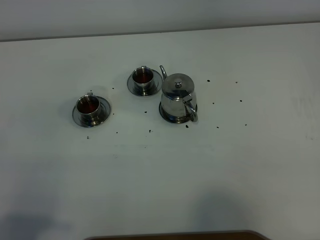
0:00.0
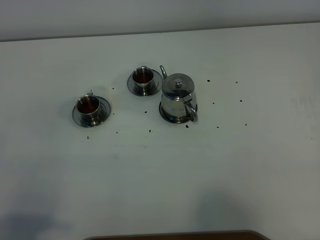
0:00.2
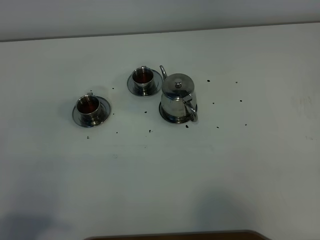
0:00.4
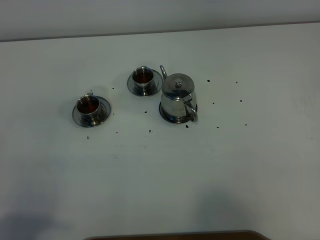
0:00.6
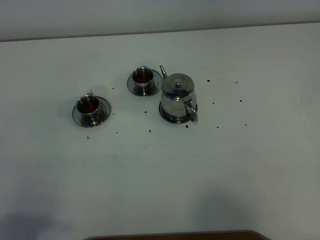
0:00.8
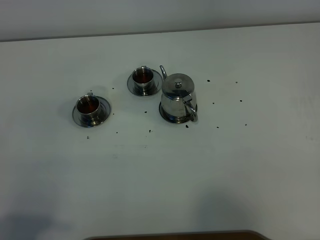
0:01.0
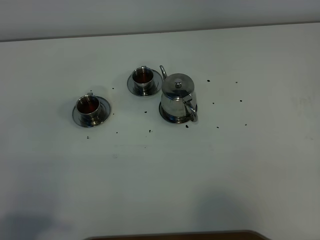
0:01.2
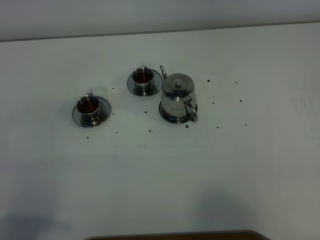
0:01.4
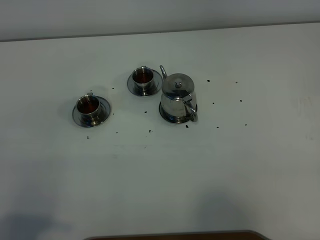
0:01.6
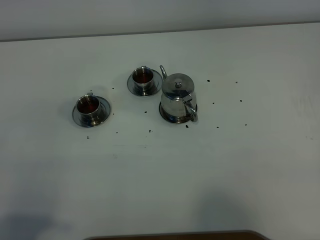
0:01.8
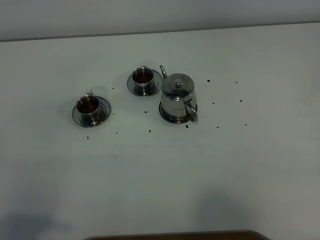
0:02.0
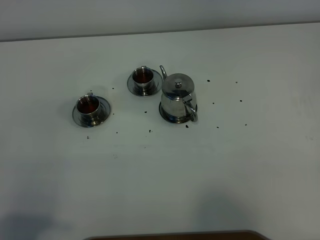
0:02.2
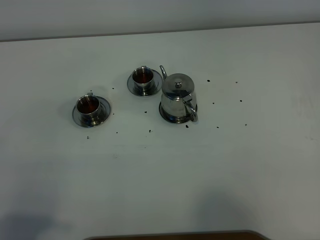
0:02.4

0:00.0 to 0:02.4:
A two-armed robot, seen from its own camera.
Task of the whole recording: grasp the stainless steel teapot and pour the tea into the two stainless steel teacups one by one, put the stainless steel teapot back in its original place.
0:01.2 to 0:02.4: The two grippers keep their place.

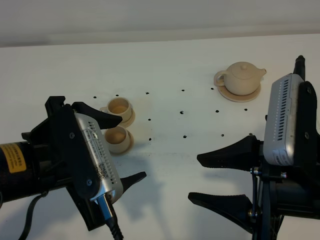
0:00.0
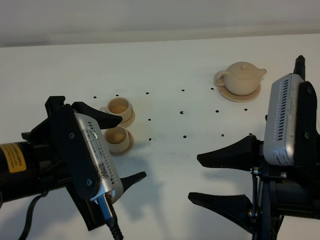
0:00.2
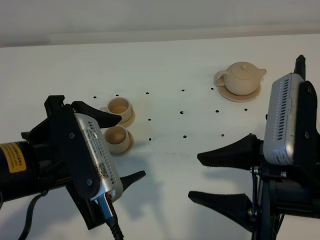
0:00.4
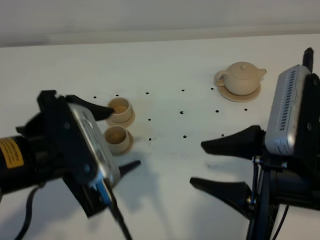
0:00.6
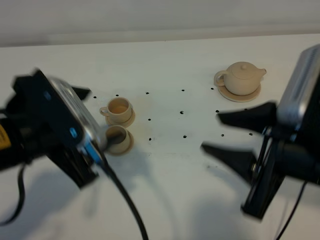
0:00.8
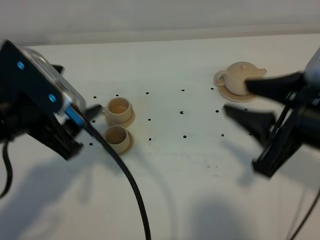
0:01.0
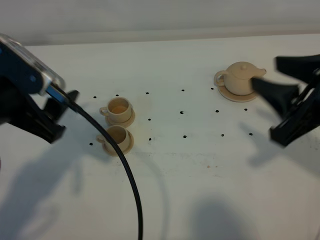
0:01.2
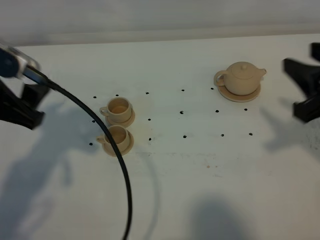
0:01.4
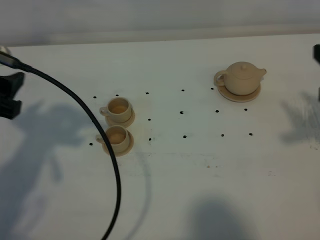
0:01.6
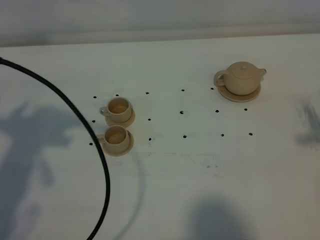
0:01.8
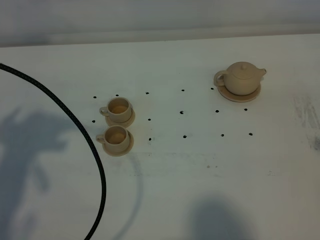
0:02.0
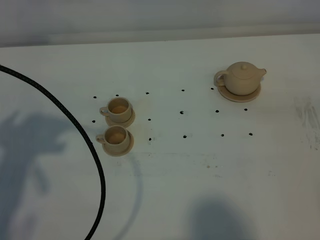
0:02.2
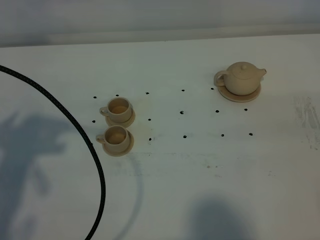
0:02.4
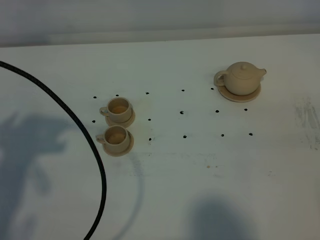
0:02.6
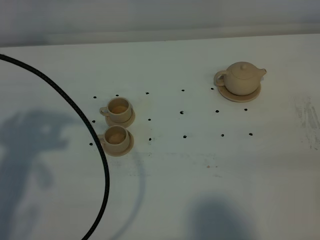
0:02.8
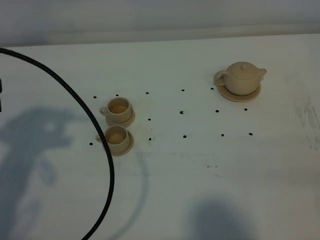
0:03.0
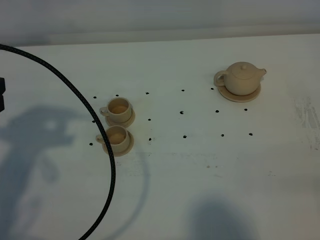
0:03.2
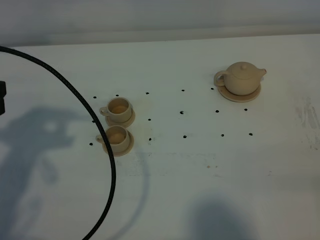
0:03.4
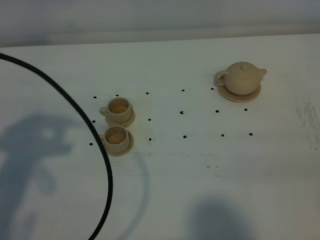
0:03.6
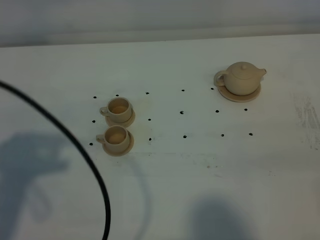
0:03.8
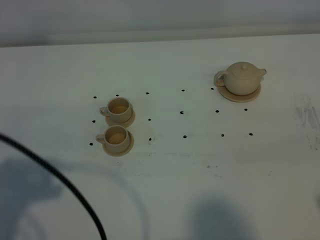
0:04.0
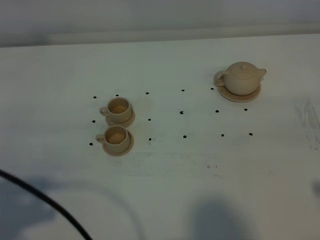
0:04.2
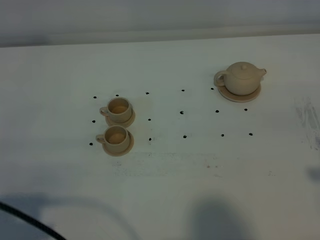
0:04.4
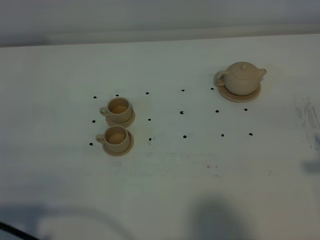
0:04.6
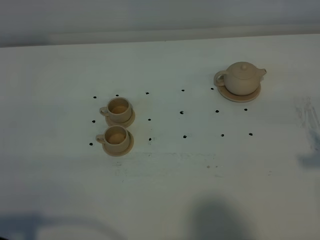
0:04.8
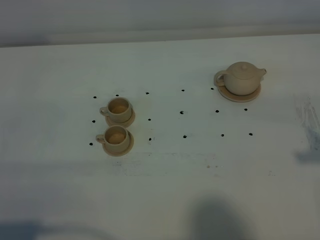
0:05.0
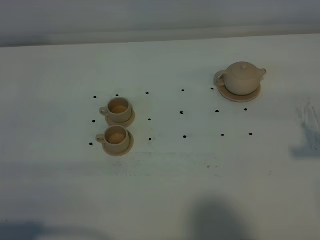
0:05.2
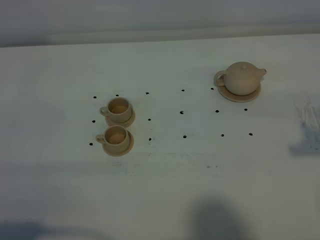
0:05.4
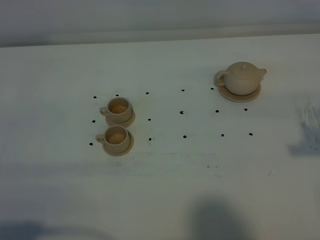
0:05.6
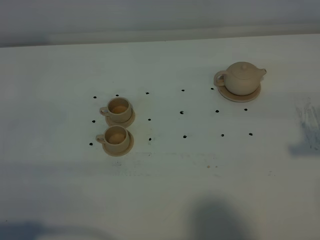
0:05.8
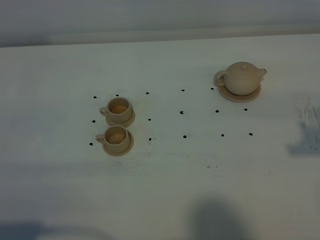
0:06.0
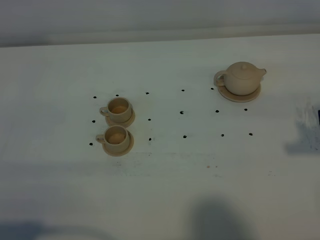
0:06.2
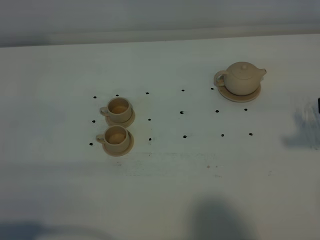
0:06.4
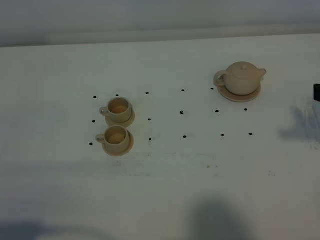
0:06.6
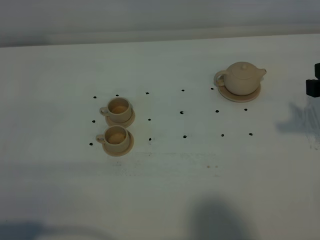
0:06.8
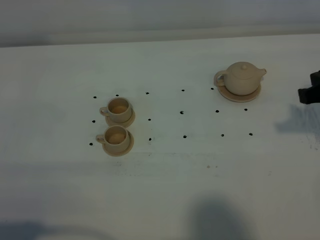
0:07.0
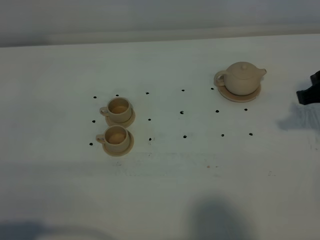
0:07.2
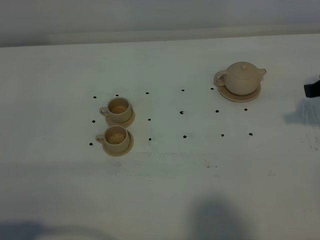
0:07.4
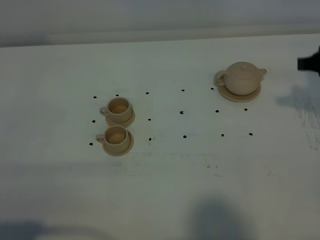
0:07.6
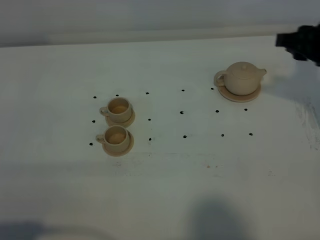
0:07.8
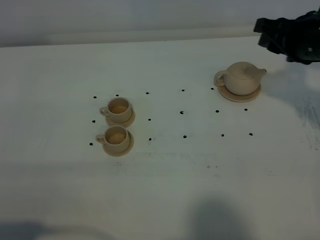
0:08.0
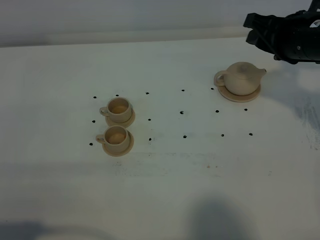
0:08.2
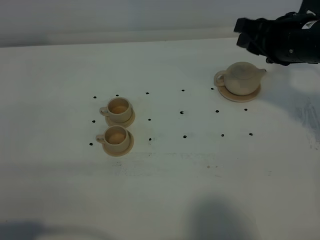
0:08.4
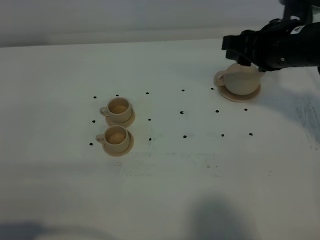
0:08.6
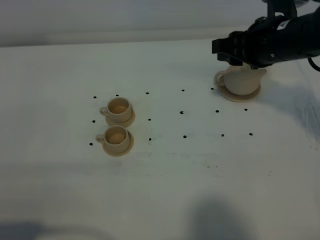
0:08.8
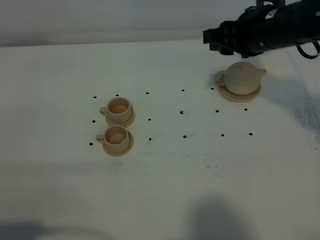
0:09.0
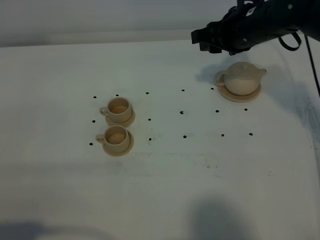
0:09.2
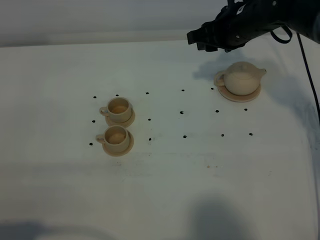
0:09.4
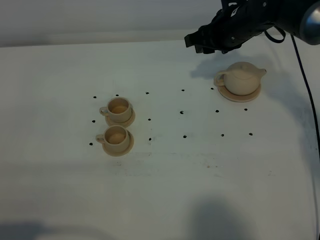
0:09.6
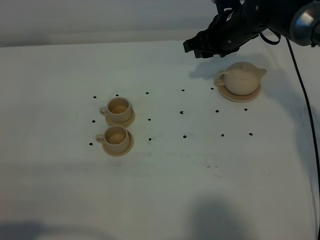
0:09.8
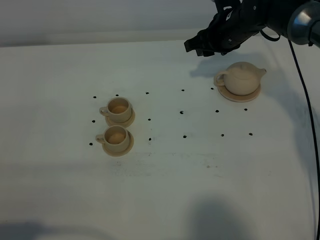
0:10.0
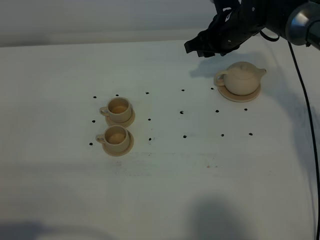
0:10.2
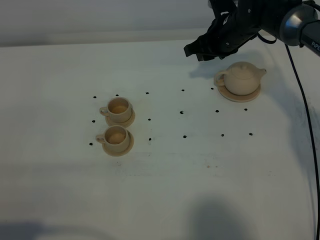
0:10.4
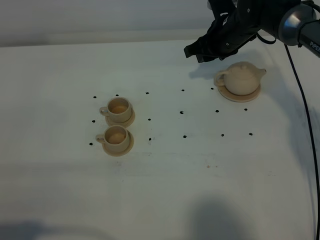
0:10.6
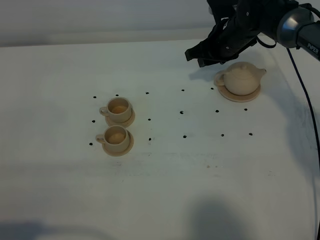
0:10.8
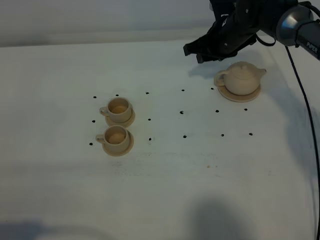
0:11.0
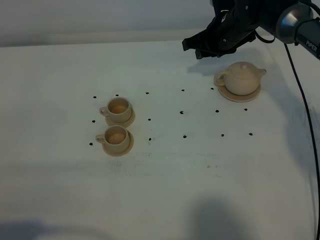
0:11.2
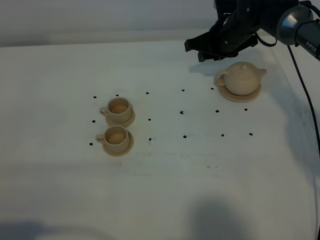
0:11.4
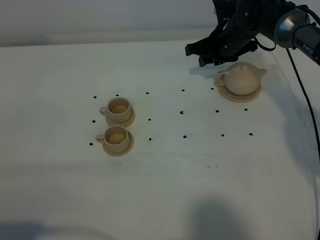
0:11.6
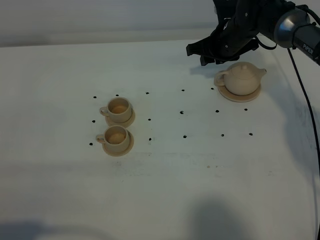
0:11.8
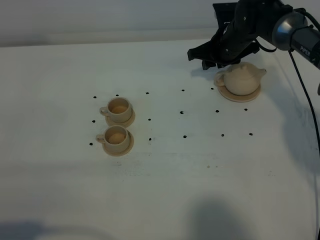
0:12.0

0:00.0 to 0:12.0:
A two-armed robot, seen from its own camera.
Task of the whole recording: grasp the brown teapot and pour the tea into the two brown teacups one by one, put the brown teapot back in its original place.
0:00.0 to 0:01.6: The right gripper is displaced to the right and forward by about 15 cm. Meanwhile the left gripper moves to the left and forward, some 15 cm.
0:01.6 to 0:03.0: The right gripper moves backward, some 20 cm.
0:03.0 to 0:04.4: The left gripper heads backward, covering some 15 cm, and closes its fingers.
0:06.0 to 0:07.6: The right gripper travels forward by approximately 15 cm.
0:07.6 to 0:09.0: The right gripper travels to the left and forward by roughly 15 cm.
0:09.0 to 0:10.4: The right gripper goes some 10 cm forward and downward.
0:10.4 to 0:12.0: The grippers make only small movements.

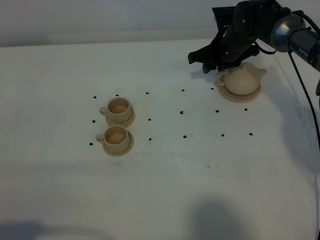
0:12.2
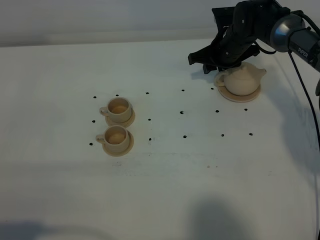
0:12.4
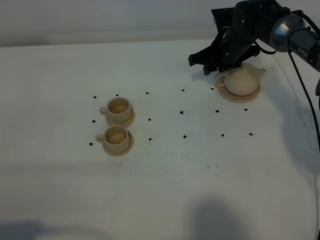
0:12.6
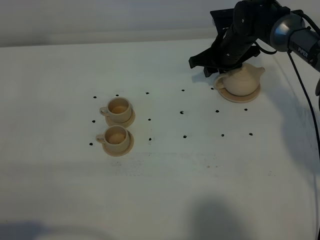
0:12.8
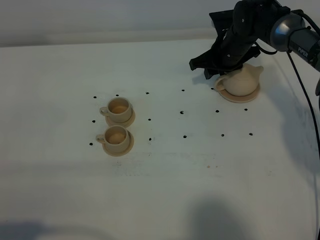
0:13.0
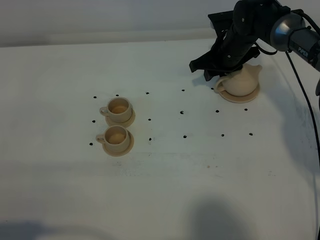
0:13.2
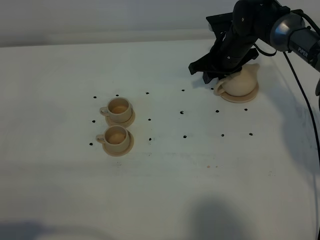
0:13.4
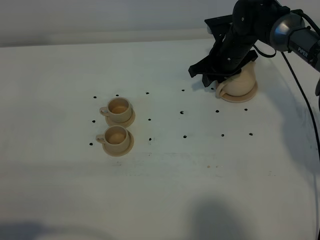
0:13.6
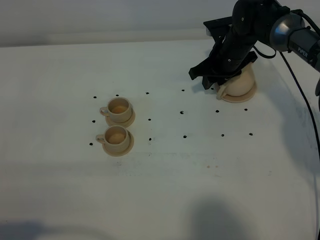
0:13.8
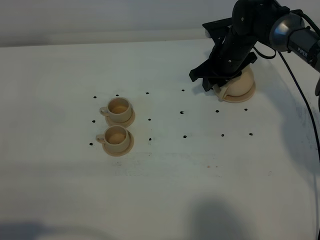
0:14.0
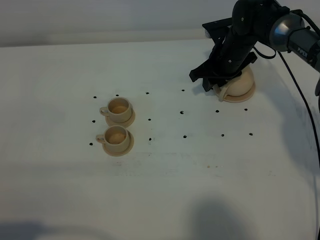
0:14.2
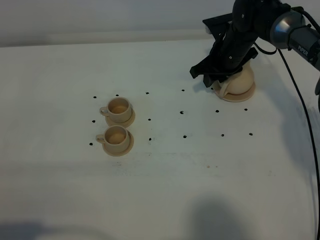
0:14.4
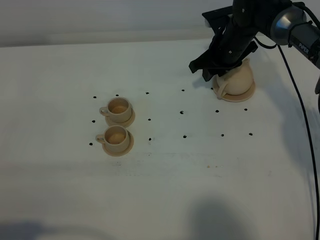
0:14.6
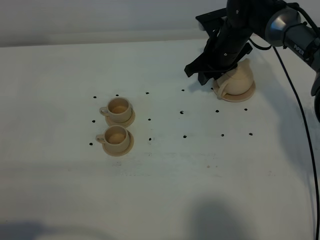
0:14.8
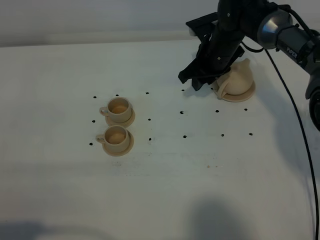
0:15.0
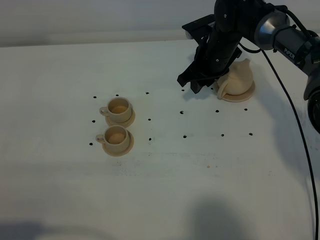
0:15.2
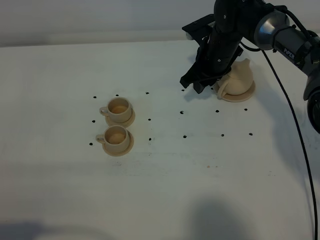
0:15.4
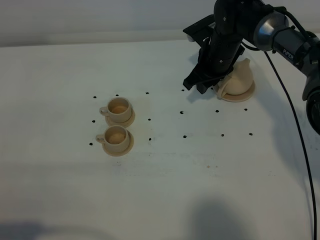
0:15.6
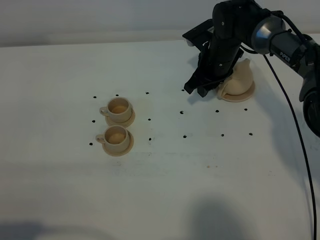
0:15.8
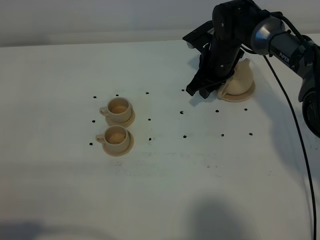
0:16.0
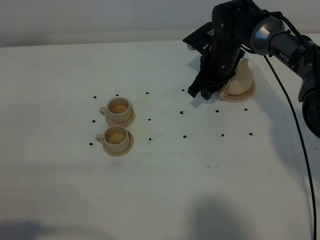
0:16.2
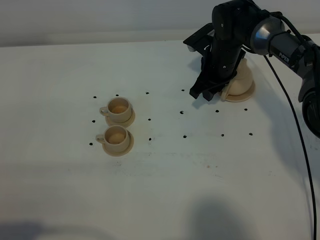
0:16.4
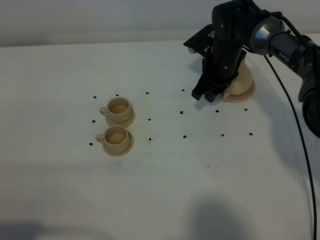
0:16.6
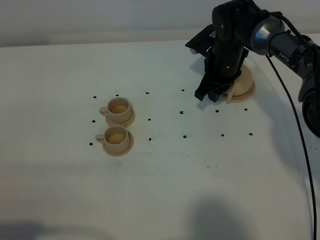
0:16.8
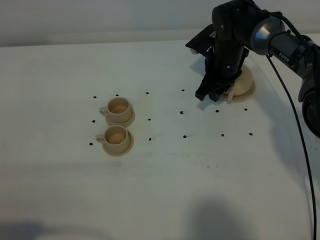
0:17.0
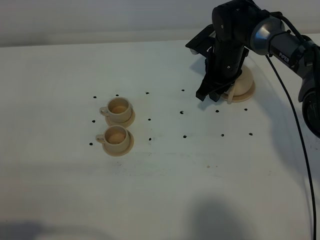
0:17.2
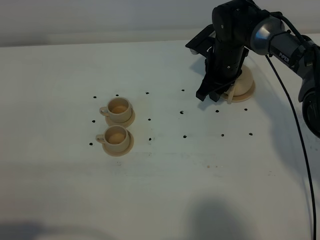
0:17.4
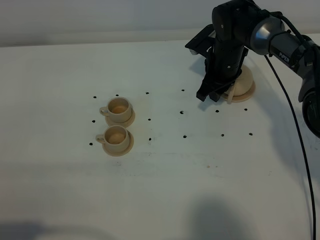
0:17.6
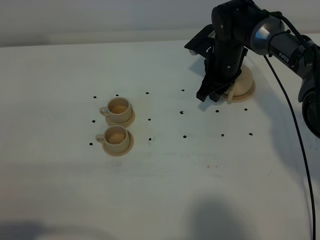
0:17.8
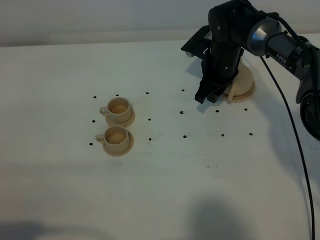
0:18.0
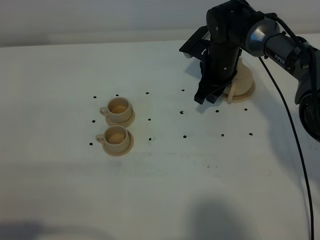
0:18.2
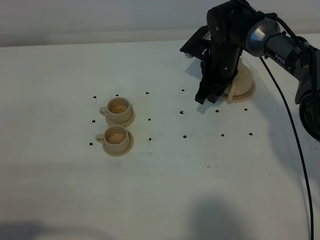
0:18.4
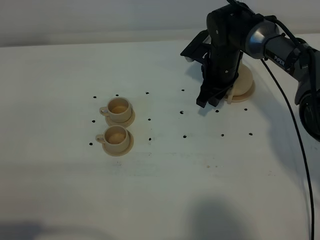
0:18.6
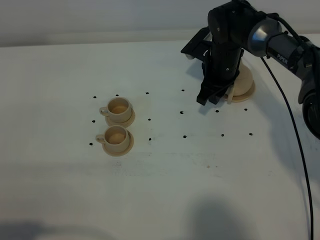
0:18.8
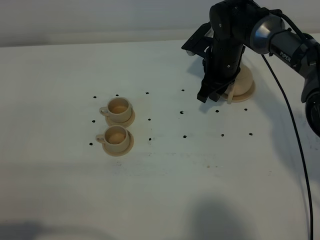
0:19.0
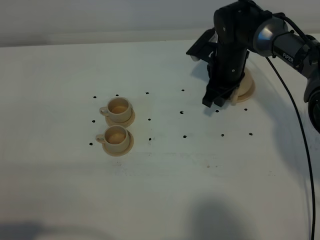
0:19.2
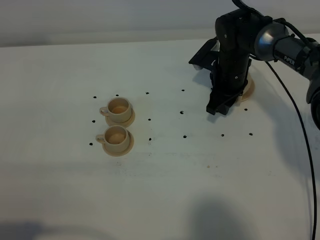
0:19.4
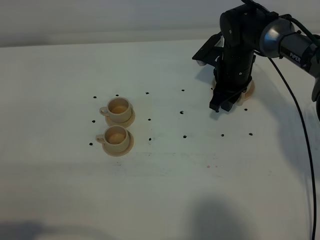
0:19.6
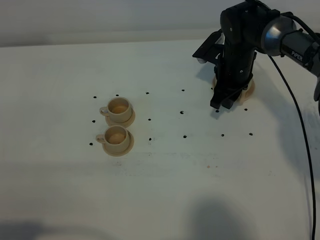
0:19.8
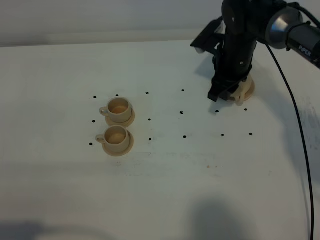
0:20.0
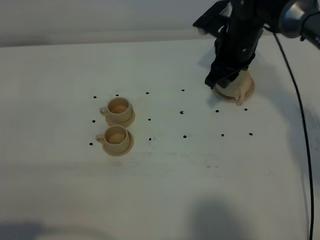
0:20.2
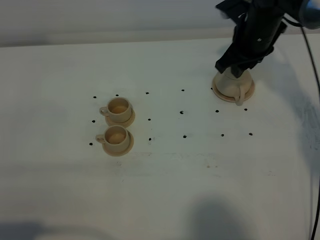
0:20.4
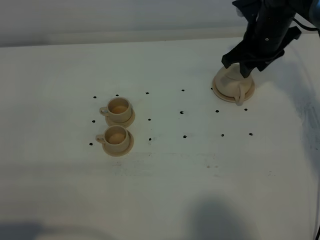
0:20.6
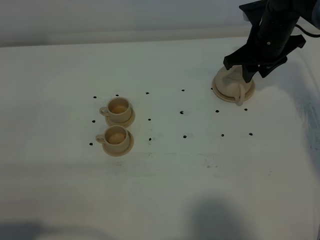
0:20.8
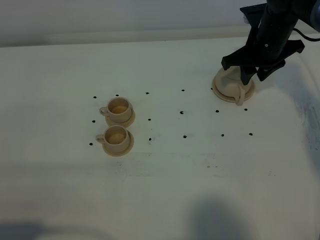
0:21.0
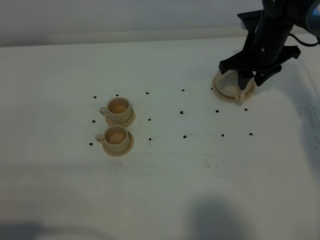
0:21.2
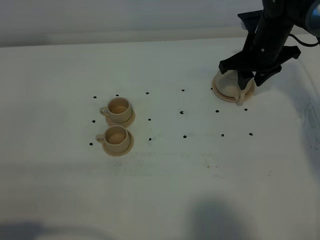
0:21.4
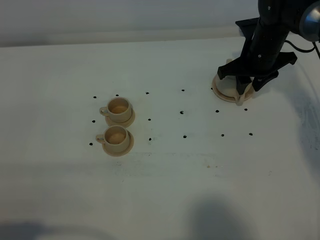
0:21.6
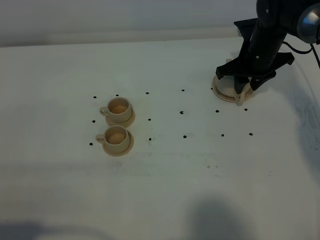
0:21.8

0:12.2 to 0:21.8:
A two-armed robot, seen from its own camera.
Task of the whole recording: grasp the brown teapot and pour the tea into the two brown teacups one by one, put the brown teapot back in its original place.
0:12.2 to 0:13.8: The grippers move only a little.
0:13.8 to 0:15.4: The grippers stay close to where they were, moving slightly.
0:15.4 to 0:17.0: The grippers stay close to where they were, moving slightly.
0:17.0 to 0:18.6: The grippers move only a little.
0:18.6 to 0:20.2: The right gripper is displaced upward by roughly 10 cm.
0:20.2 to 0:21.8: The right gripper moves some 5 cm.
